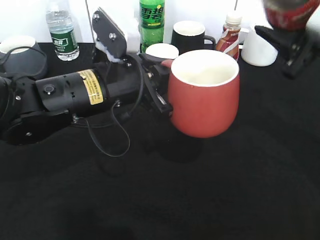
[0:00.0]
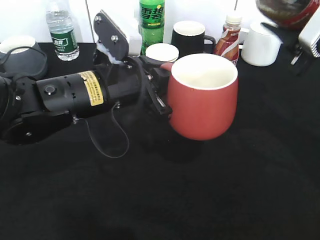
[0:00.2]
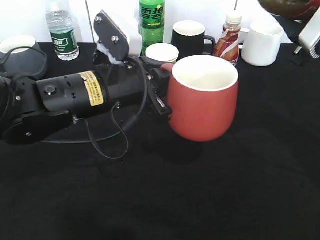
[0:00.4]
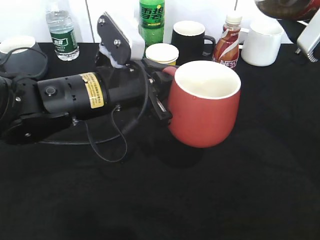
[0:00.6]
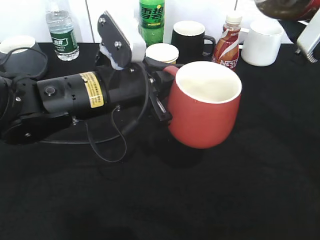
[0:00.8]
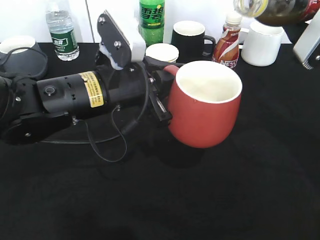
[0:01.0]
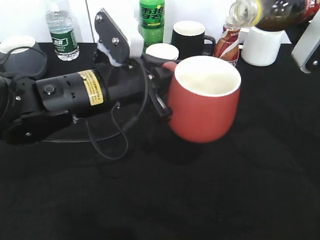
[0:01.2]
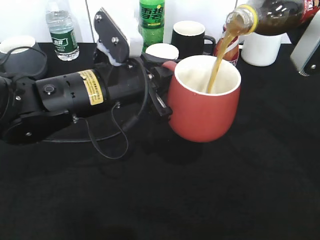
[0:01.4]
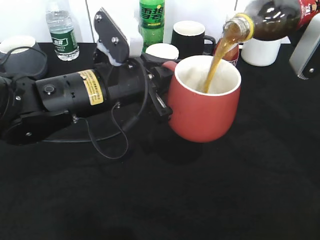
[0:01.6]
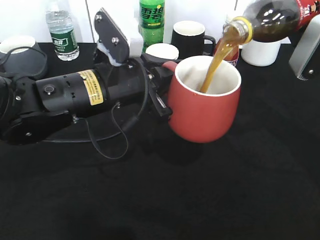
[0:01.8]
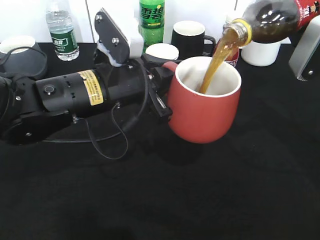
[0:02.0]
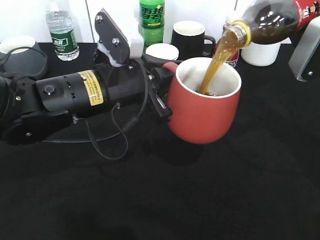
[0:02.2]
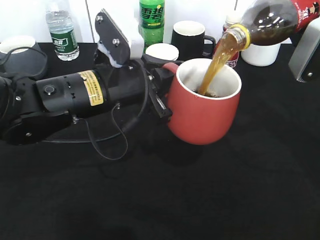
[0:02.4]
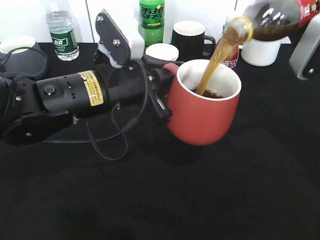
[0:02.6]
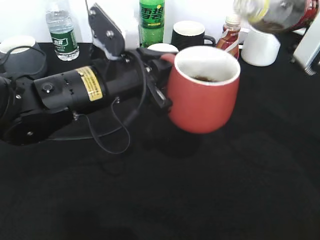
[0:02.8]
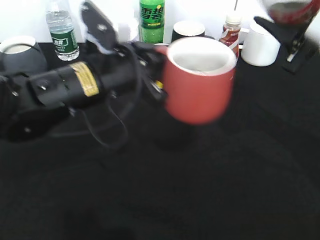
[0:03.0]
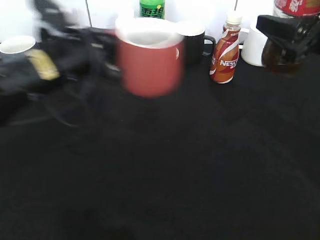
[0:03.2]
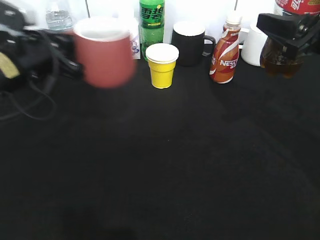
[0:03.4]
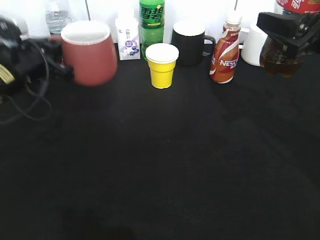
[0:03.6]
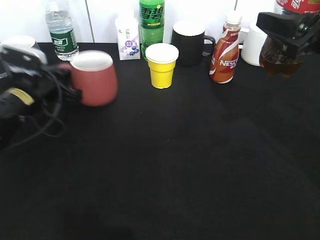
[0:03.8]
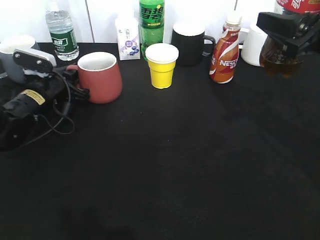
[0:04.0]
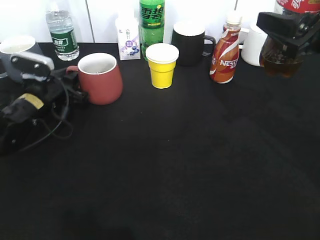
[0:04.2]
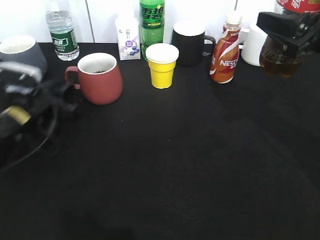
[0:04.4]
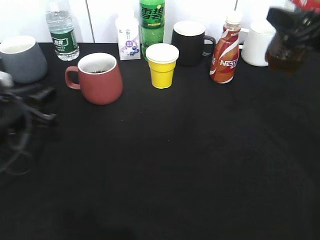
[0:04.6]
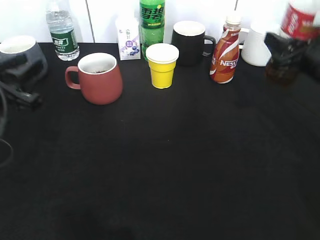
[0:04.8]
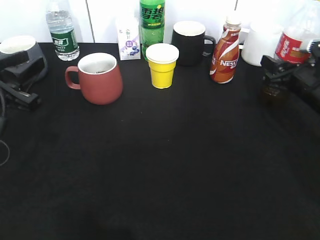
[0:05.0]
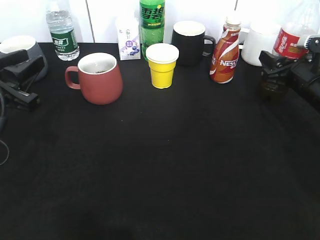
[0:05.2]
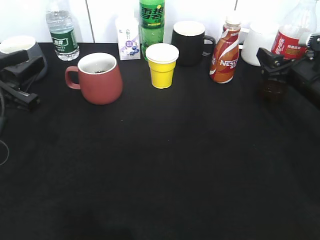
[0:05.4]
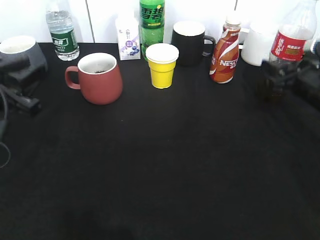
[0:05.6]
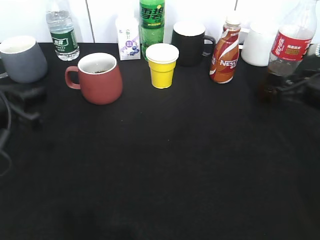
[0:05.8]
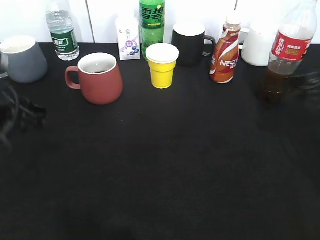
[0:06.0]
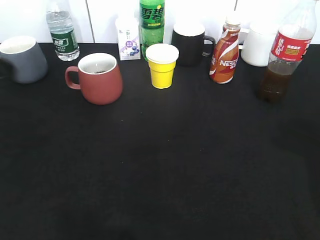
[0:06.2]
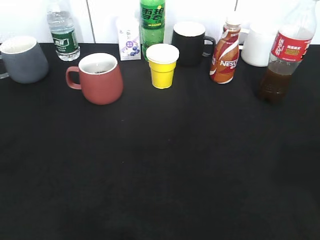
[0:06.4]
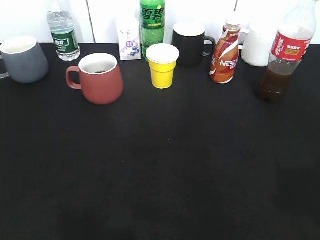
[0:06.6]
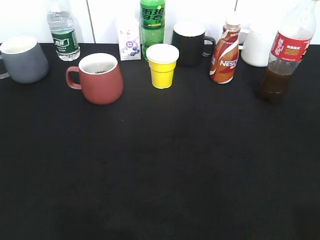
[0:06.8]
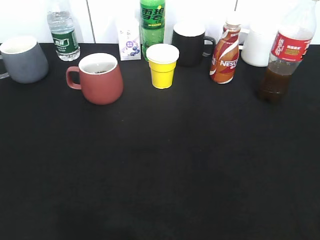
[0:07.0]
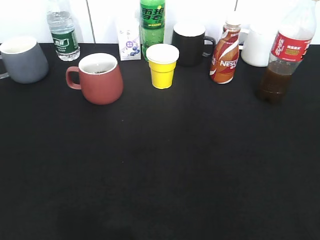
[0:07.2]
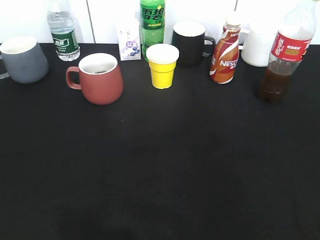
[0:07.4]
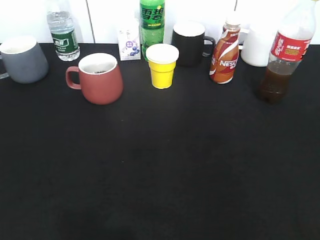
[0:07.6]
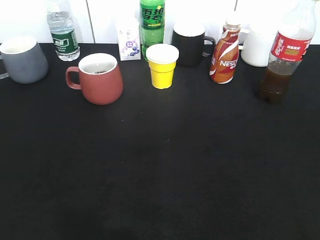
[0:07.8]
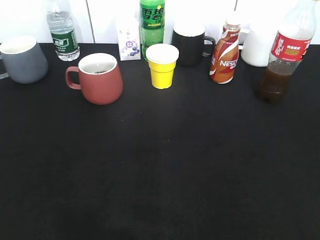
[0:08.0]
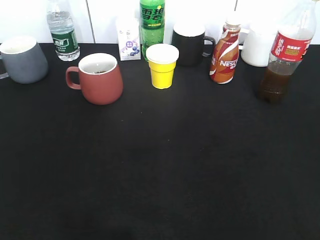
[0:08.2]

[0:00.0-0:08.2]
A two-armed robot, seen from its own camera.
Step, 0:00.0 to 0:02.8: Pour the cola from bottle to cup with right gripper.
Step, 0:03.0 to 0:04.6: Place the red cup on the table with left gripper.
Step, 0:04.8 to 0:06.0: Place the cola bottle on the table with right gripper.
0:01.6 to 0:03.2: The left gripper is displaced to the left by roughly 5 cm.
0:03.2 to 0:05.0: The right gripper heads downward and forward, covering about 15 cm; the left gripper travels to the left and backward by approximately 10 cm, and opens.
0:05.0 to 0:06.6: The left gripper is displaced backward and upward by some 20 cm; the right gripper travels backward and upward by approximately 35 cm, and opens.

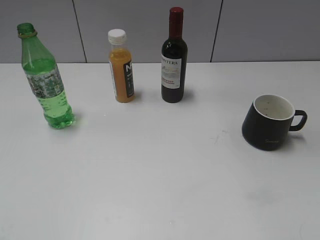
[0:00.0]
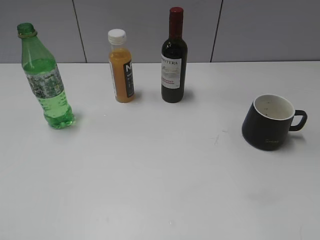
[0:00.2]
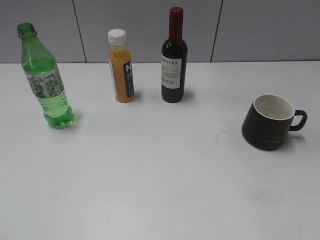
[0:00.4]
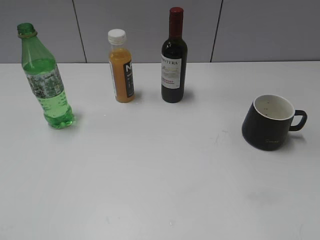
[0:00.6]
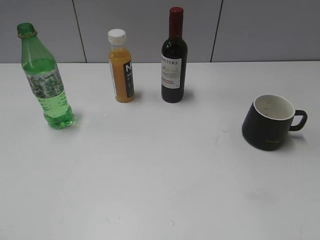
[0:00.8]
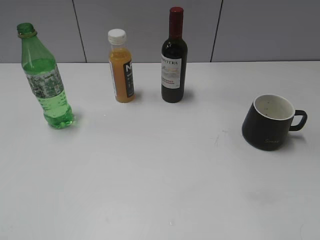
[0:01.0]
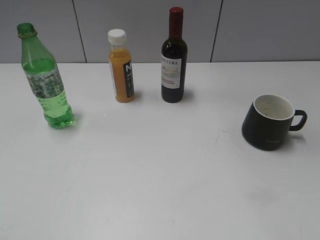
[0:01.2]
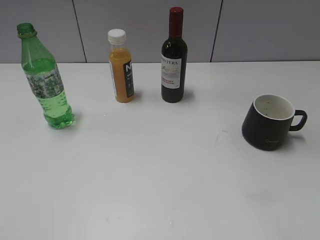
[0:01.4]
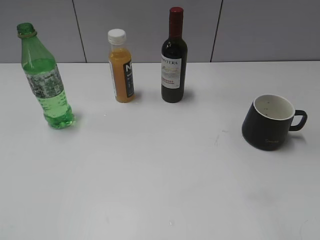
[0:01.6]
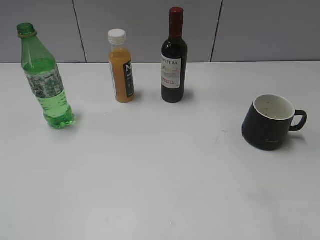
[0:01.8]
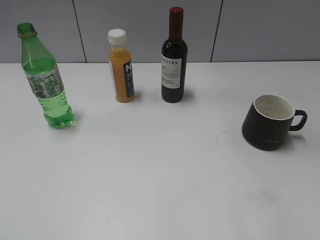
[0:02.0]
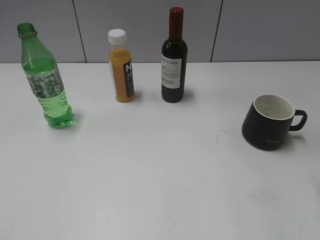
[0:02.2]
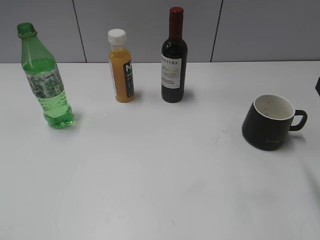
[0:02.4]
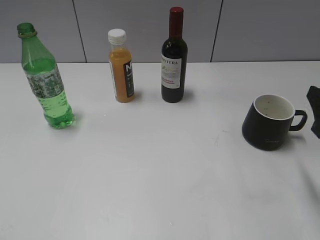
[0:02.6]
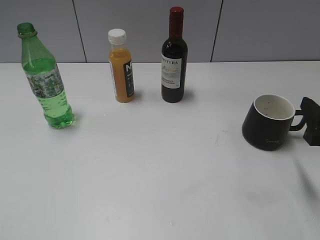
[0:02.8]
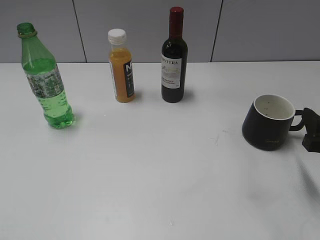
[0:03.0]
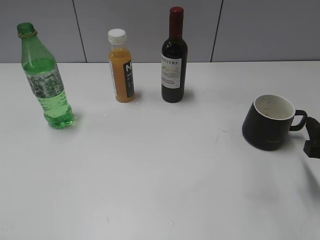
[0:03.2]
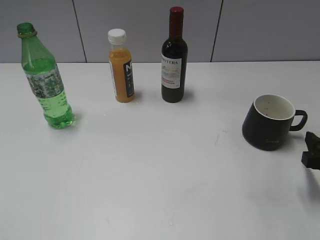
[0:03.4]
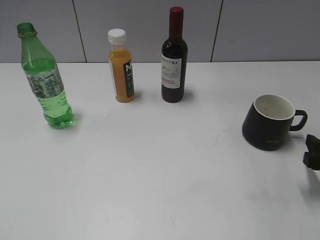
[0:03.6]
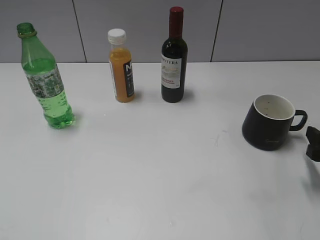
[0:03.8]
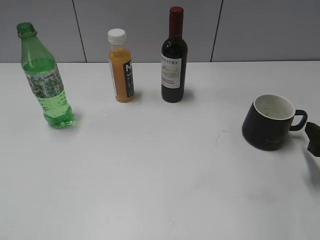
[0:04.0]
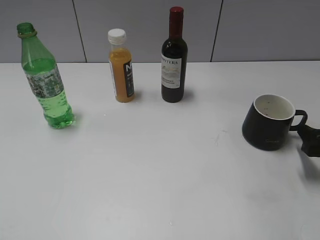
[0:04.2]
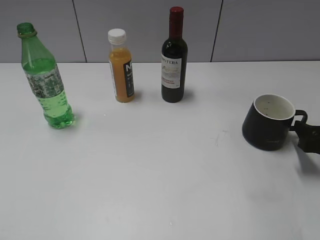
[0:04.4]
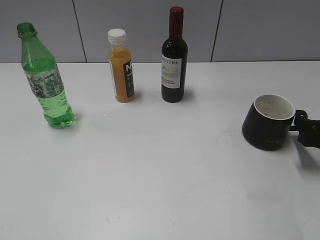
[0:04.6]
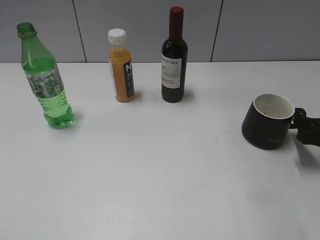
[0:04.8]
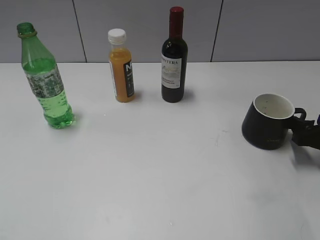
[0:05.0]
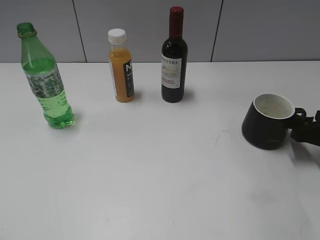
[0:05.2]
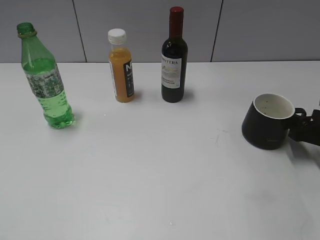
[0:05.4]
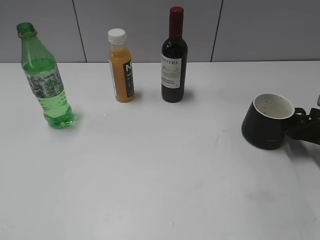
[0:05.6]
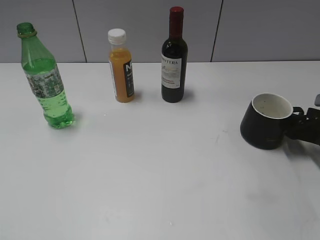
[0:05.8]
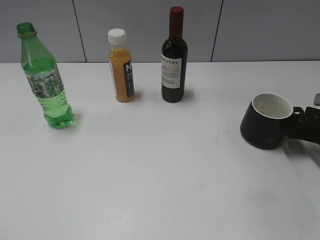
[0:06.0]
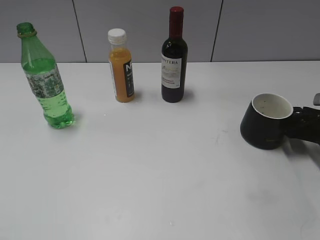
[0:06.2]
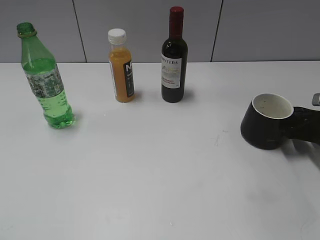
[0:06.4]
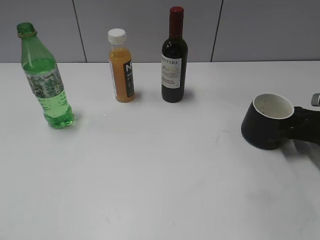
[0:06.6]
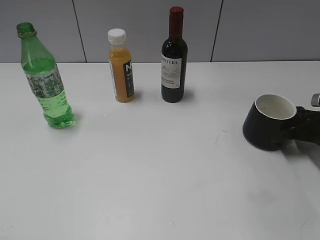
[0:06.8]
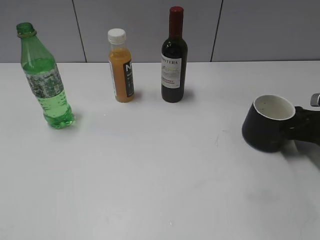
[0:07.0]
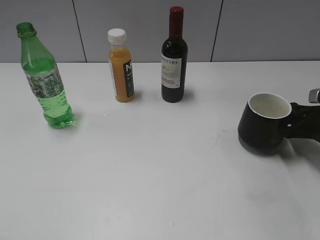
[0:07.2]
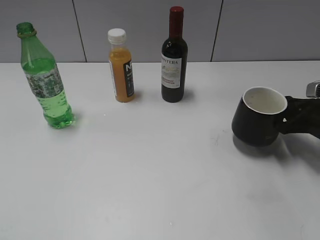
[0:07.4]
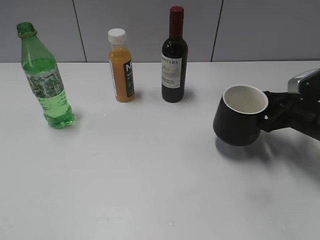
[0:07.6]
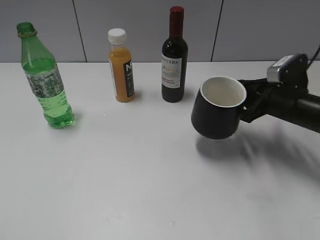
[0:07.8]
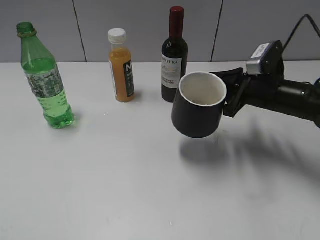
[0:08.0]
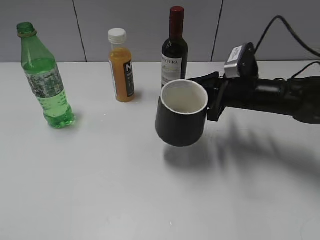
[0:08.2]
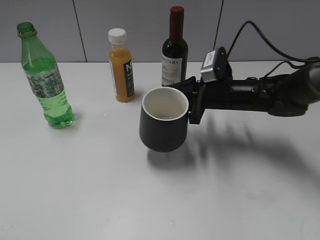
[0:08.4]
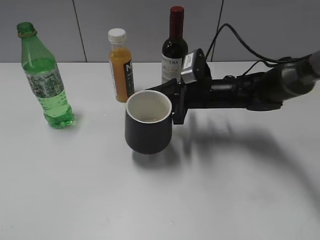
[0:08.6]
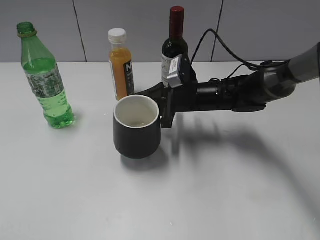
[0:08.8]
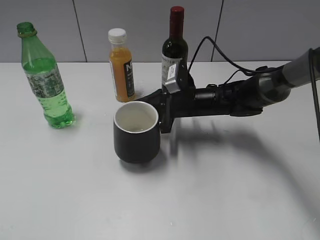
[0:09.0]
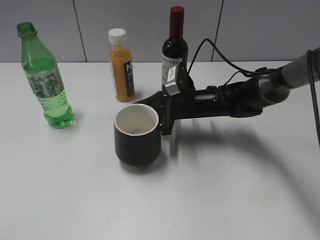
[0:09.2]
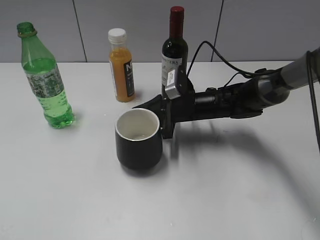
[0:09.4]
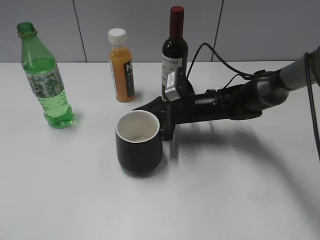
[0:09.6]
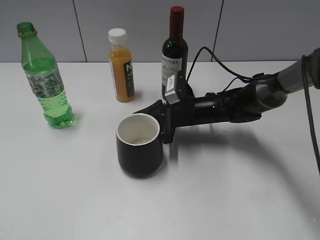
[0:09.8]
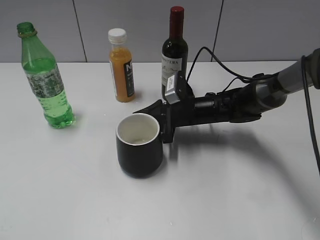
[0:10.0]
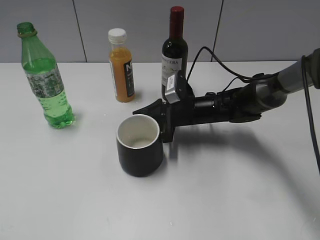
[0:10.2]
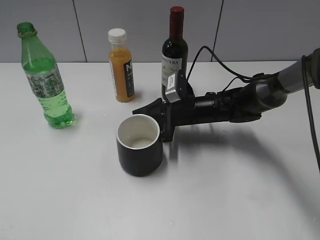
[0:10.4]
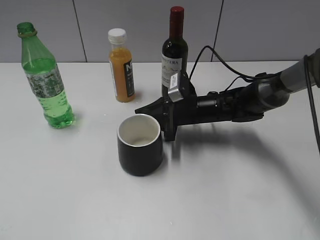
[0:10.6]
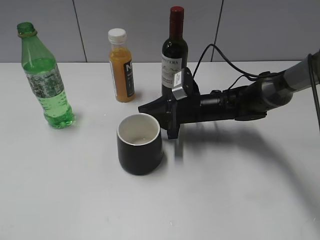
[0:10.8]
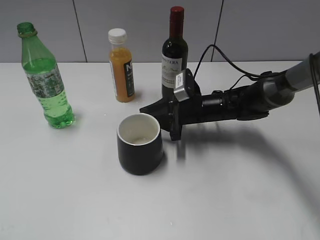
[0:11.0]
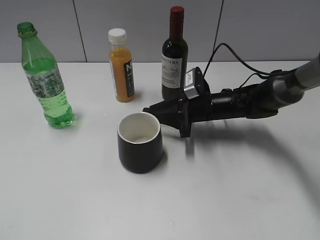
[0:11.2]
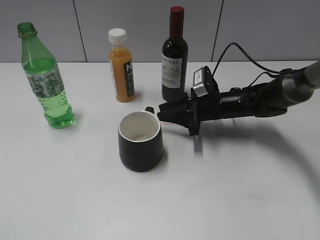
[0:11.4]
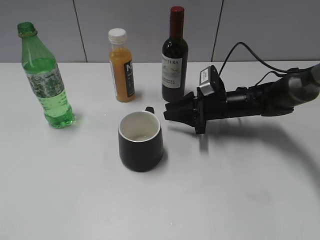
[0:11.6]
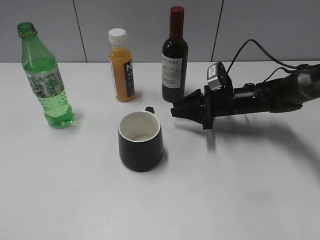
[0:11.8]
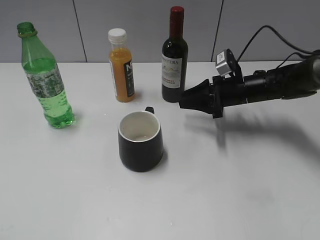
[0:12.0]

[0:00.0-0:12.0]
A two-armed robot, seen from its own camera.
Step, 0:00.8 to 0:06.8: Grasp the black cup with right gripper.
Step, 0:07.0 to 0:11.2: Place the black cup in the center of view with right gripper.
0:01.6 to 0:03.0: The right gripper moves forward and downward, approximately 20 cm.
0:03.0 to 0:04.4: The right gripper moves downward and forward, roughly 10 cm.
0:04.4 to 0:06.0: The right gripper is displaced forward by some 5 cm.
0:06.0 to 0:07.6: The right gripper shifts about 5 cm to the left, and closes its fingers.
0:07.6 to 0:09.0: The right gripper shifts about 20 cm to the left.
0:09.0 to 0:10.4: There are only small adjustments of the grippers.
0:10.4 to 0:12.0: The right gripper travels to the right by some 10 cm.

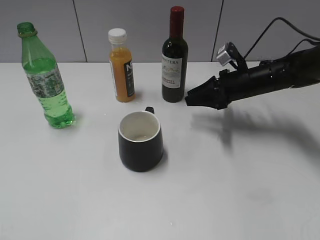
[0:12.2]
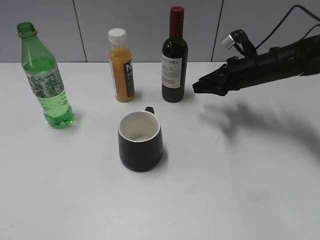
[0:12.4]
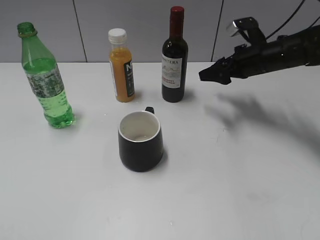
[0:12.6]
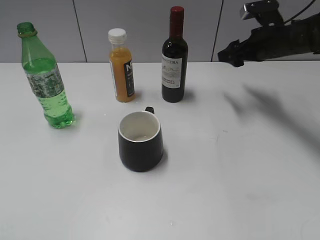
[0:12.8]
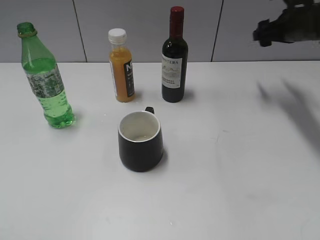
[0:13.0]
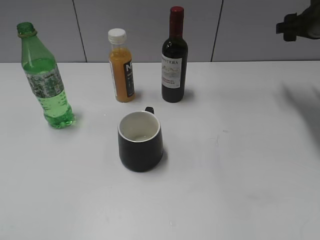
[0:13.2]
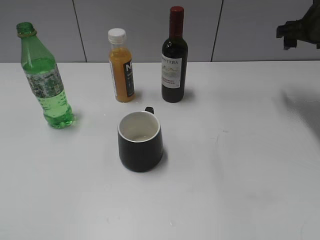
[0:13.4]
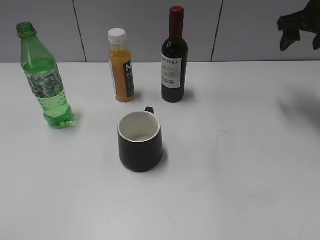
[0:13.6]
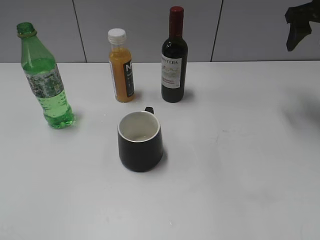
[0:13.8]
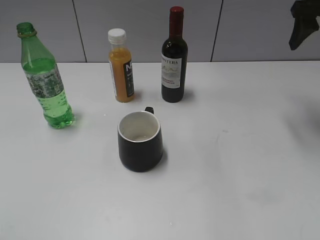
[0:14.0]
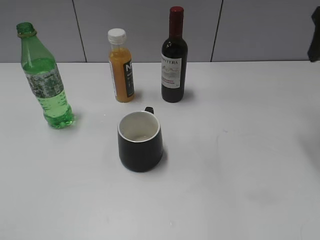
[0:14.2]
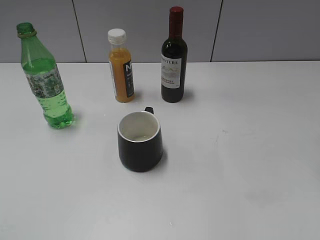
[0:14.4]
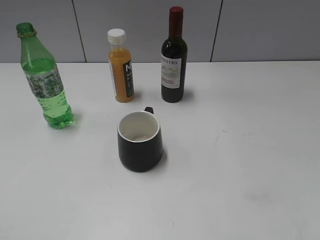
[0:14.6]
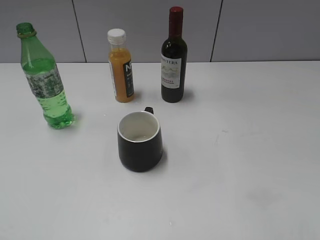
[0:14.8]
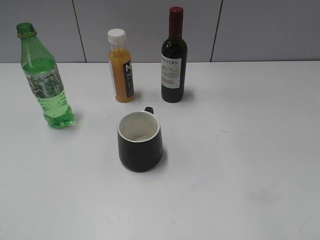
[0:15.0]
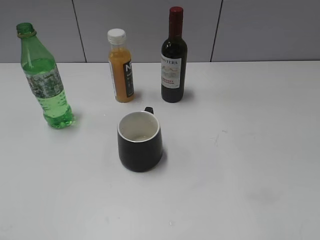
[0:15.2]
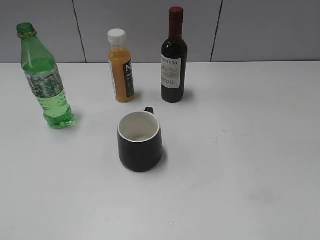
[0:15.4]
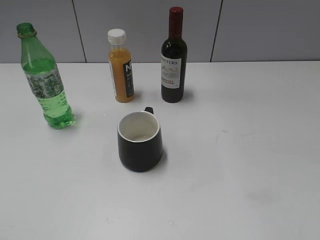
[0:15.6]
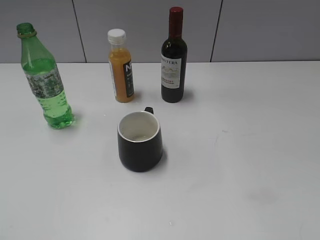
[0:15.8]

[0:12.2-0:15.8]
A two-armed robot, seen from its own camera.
0:12.2 to 0:14.0: The right gripper goes some 25 cm upward and to the right, and opens its fingers.
0:14.0 to 0:15.8: The right gripper travels backward by roughly 40 cm.
